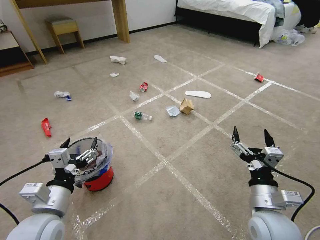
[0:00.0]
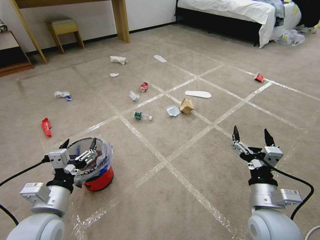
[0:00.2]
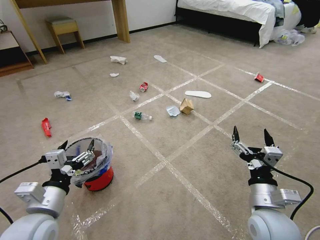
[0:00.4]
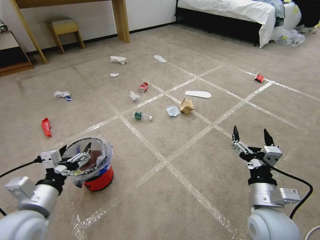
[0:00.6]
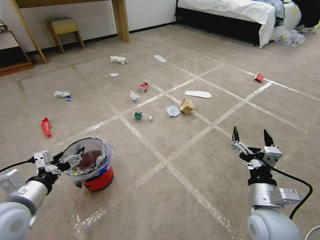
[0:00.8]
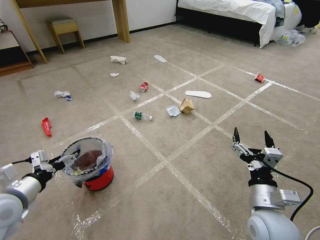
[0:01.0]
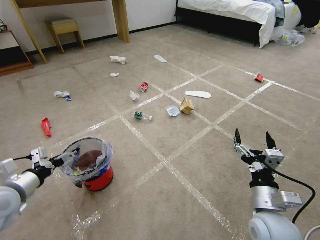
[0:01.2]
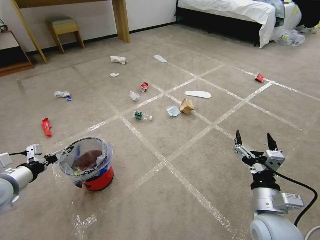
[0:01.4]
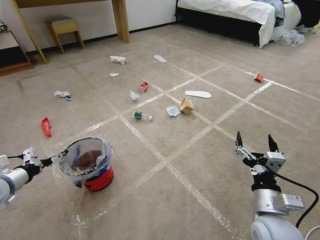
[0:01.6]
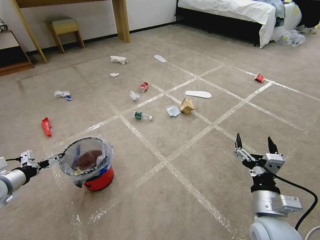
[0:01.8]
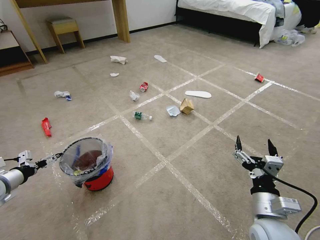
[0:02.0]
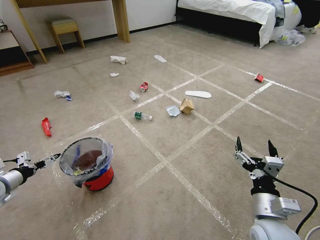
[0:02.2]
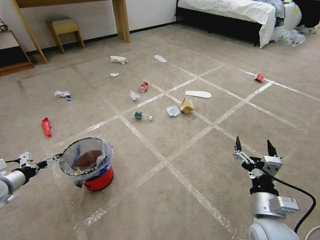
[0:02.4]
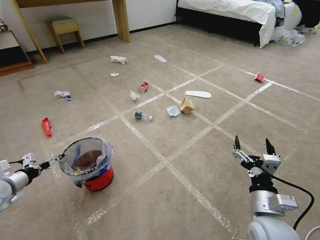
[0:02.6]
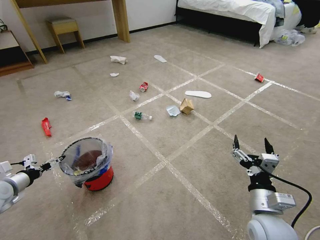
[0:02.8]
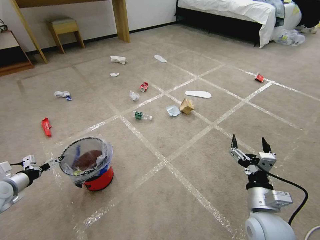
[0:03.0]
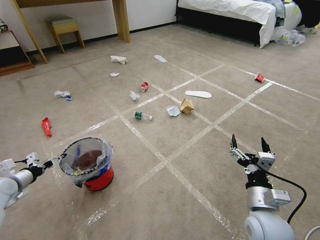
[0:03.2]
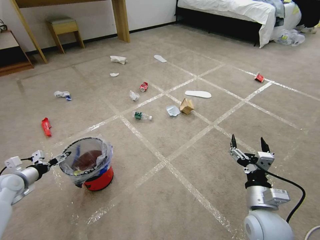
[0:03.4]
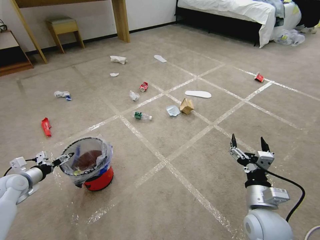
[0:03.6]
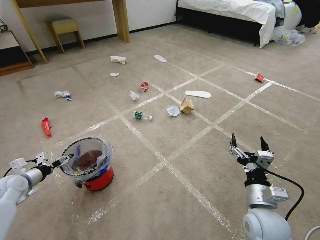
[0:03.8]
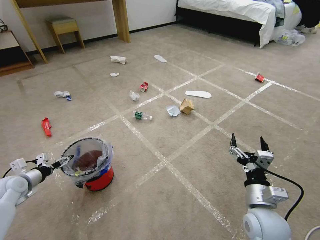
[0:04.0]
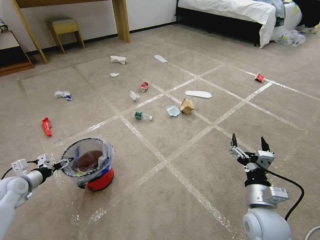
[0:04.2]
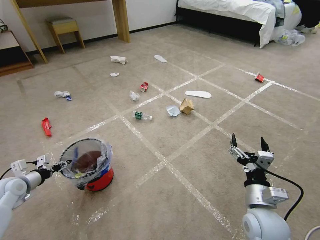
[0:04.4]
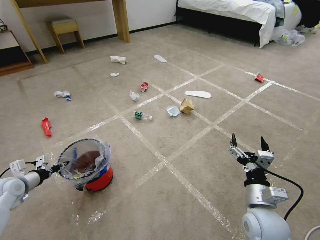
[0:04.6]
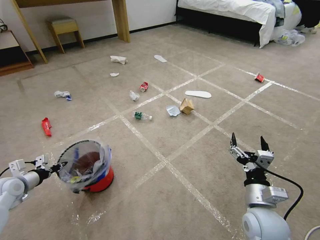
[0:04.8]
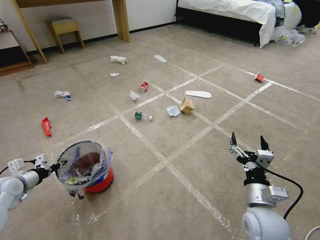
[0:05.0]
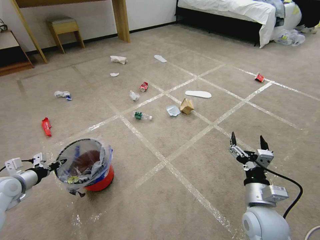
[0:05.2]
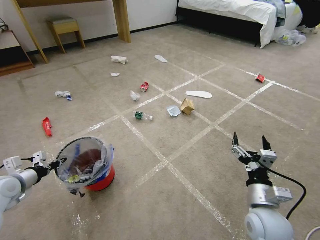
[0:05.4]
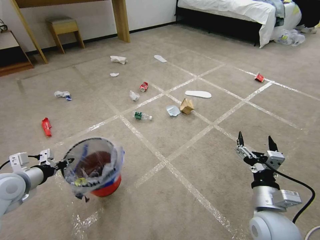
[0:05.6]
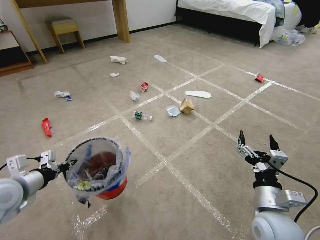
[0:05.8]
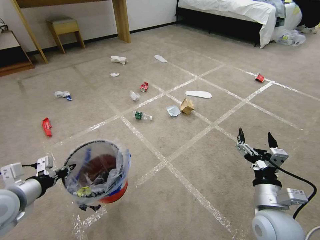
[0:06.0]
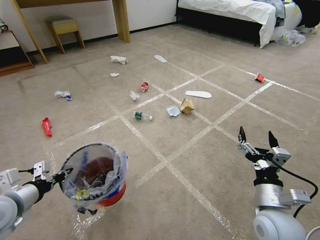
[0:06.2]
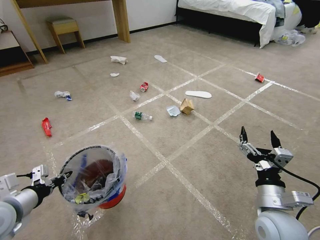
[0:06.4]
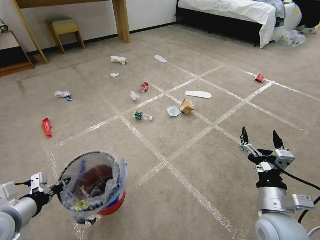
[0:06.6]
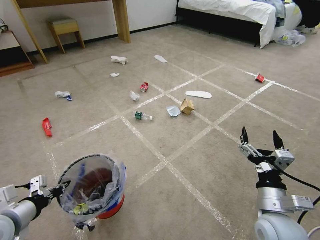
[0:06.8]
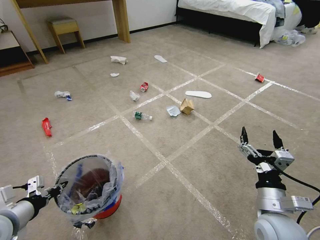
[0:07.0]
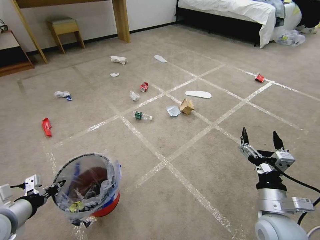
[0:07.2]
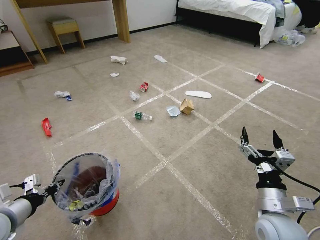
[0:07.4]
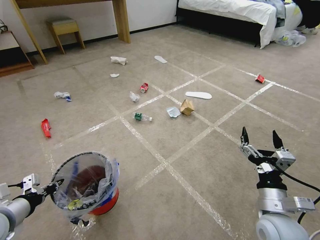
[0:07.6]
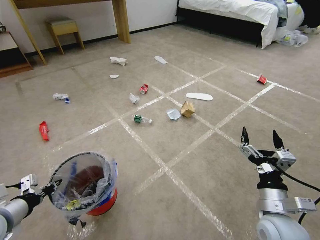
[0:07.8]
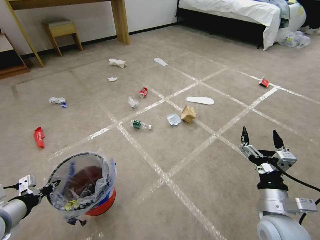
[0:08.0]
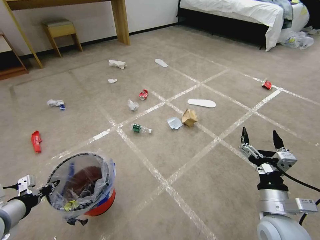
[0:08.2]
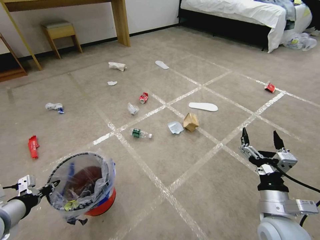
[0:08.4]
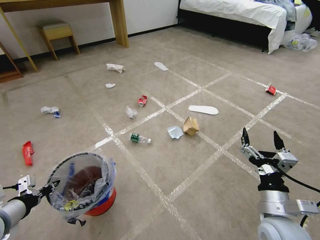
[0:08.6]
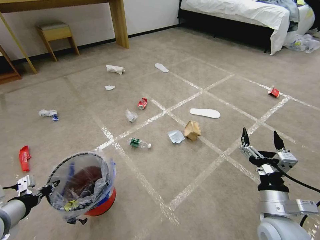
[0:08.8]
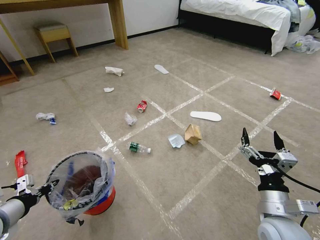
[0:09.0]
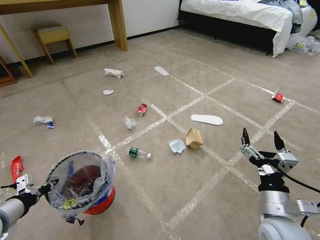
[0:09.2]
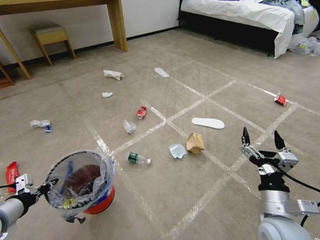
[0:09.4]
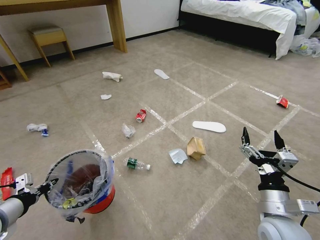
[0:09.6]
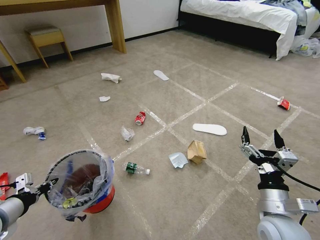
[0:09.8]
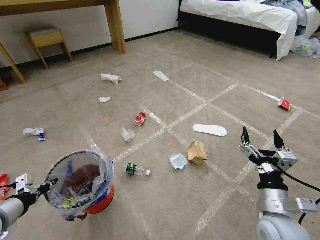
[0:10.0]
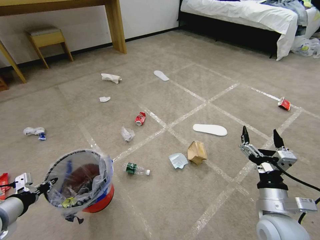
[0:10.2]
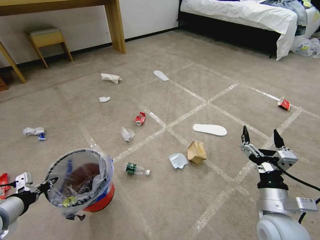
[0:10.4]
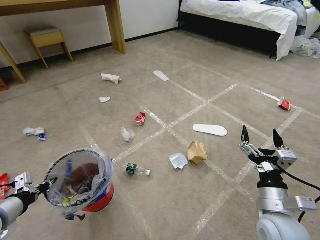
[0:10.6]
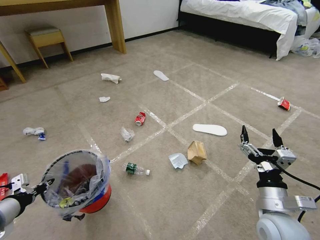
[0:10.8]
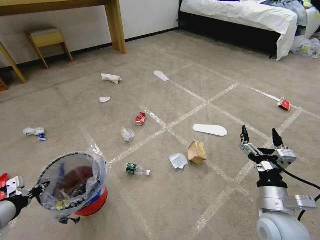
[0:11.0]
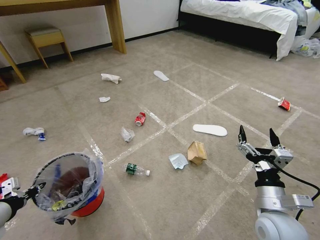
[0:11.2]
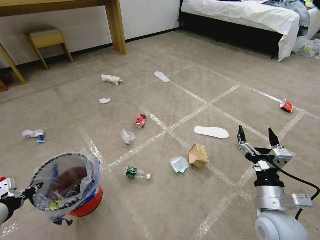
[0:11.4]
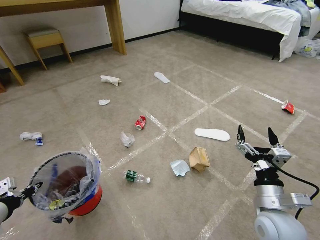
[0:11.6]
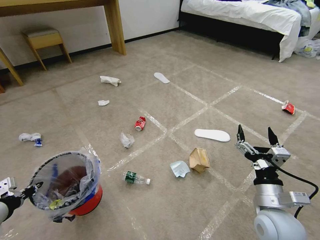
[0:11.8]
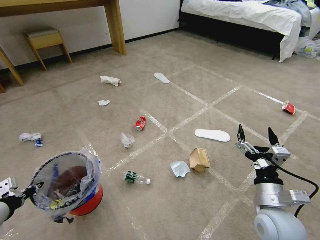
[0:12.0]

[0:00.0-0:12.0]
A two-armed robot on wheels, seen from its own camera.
Task of the whole recording: Pick up the trash bin and place the garbage on the floor into it.
0:01.6 to 0:03.0: The left gripper is displaced downward by about 5 cm.
0:03.0 to 0:04.4: The left gripper closes its fingers.
0:04.4 to 0:06.0: The left gripper heads upward, to the right and backward, covering some 20 cm, and closes.
0:06.0 to 0:07.6: The left gripper moves about 5 cm.
0:10.4 to 0:12.0: The grippers move only a little.

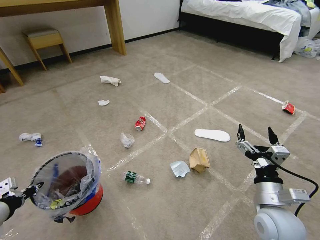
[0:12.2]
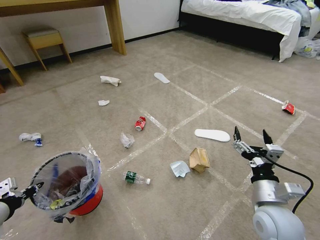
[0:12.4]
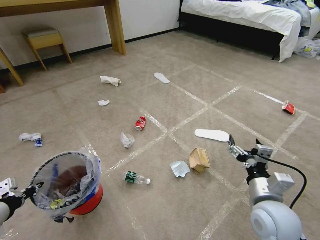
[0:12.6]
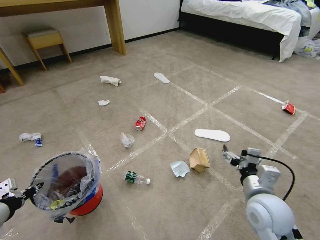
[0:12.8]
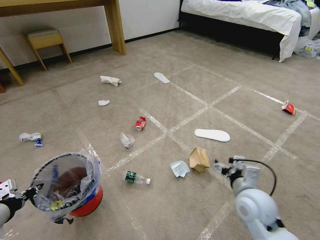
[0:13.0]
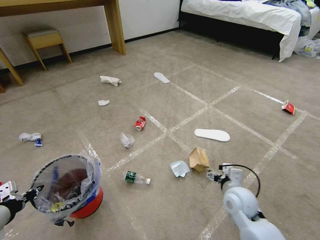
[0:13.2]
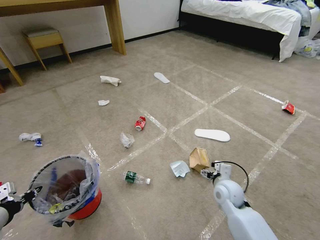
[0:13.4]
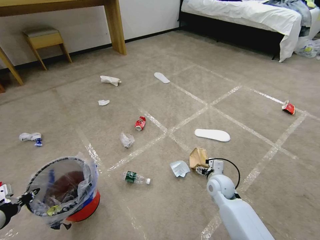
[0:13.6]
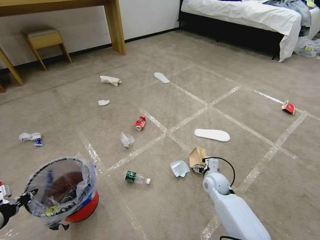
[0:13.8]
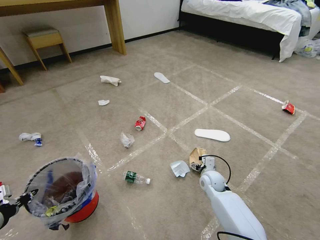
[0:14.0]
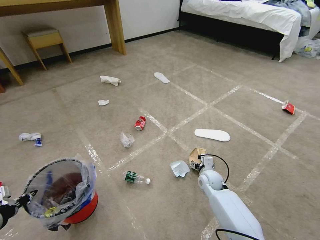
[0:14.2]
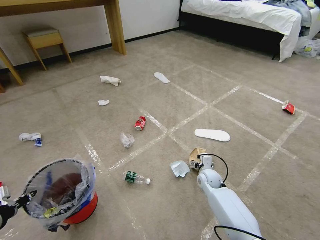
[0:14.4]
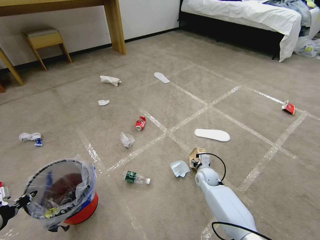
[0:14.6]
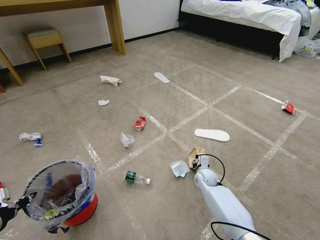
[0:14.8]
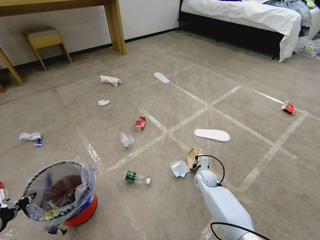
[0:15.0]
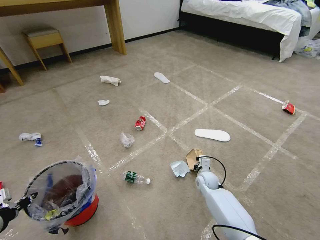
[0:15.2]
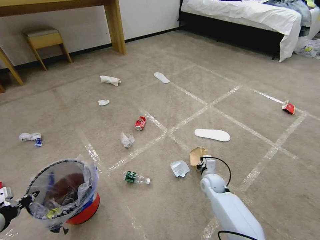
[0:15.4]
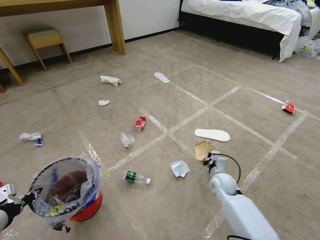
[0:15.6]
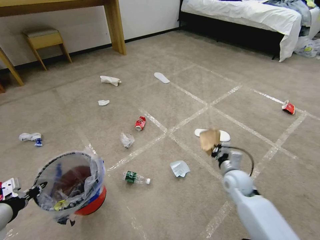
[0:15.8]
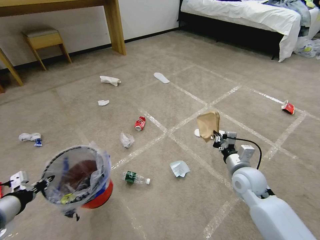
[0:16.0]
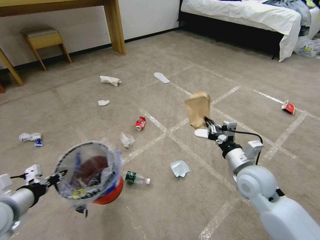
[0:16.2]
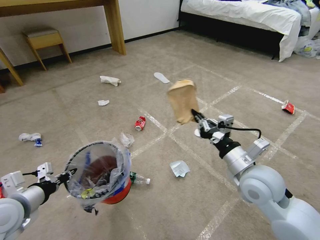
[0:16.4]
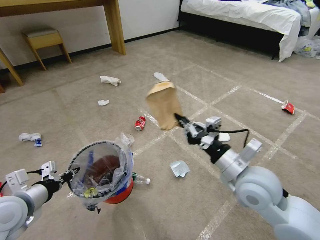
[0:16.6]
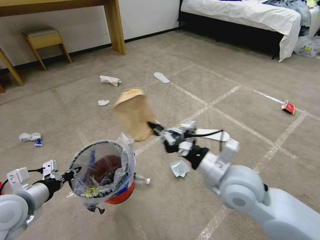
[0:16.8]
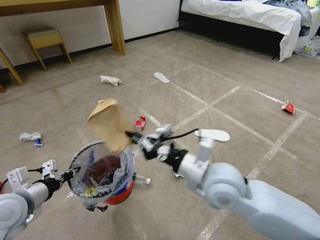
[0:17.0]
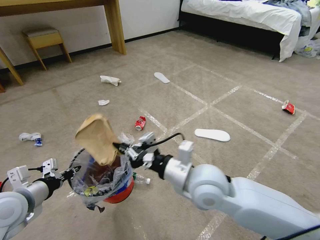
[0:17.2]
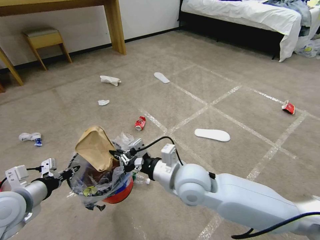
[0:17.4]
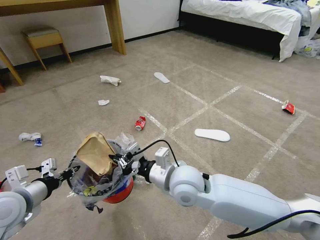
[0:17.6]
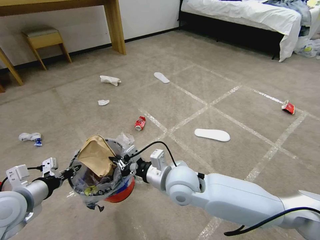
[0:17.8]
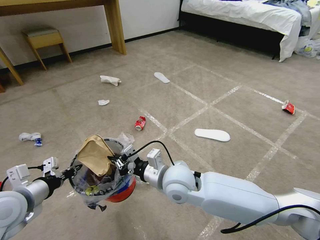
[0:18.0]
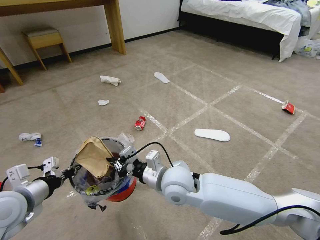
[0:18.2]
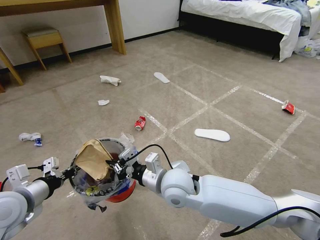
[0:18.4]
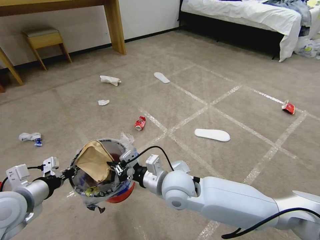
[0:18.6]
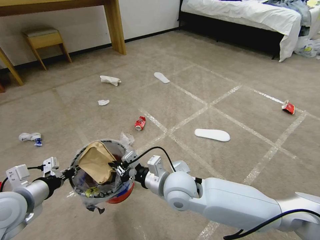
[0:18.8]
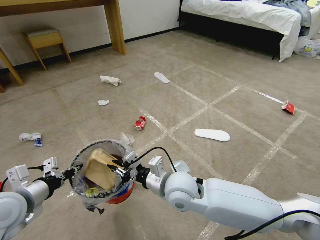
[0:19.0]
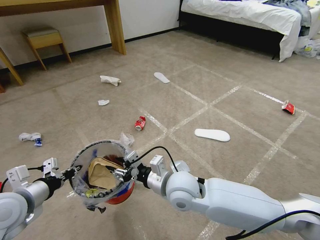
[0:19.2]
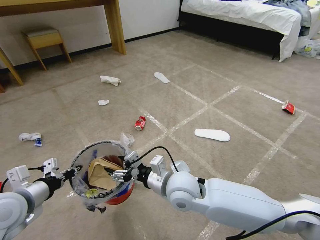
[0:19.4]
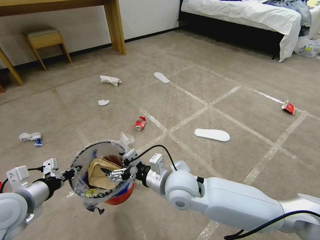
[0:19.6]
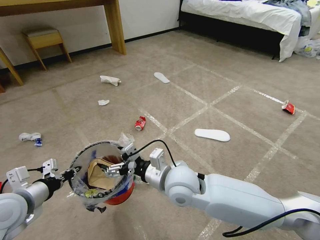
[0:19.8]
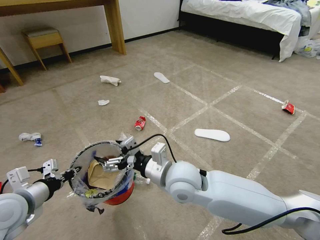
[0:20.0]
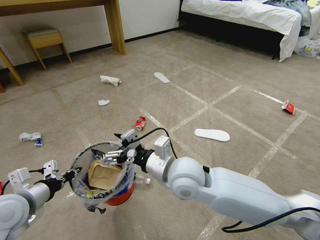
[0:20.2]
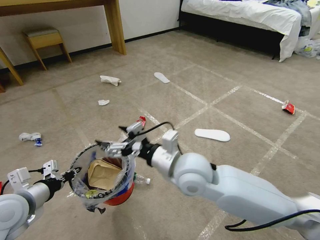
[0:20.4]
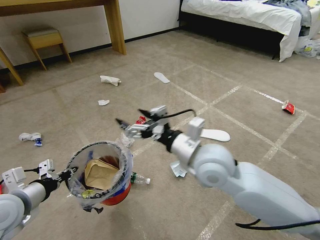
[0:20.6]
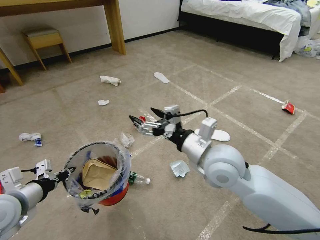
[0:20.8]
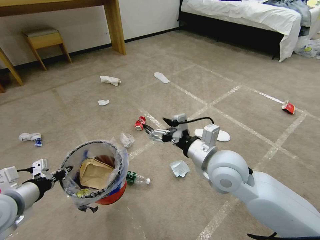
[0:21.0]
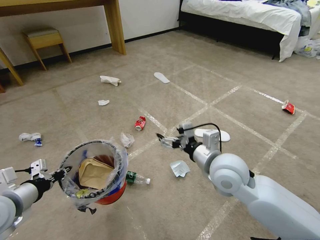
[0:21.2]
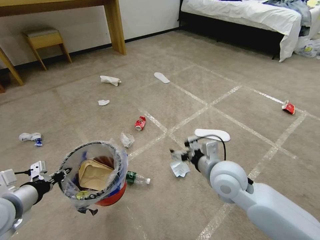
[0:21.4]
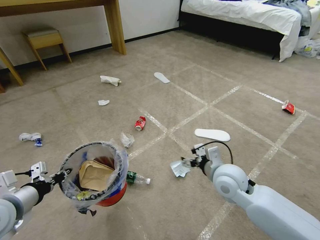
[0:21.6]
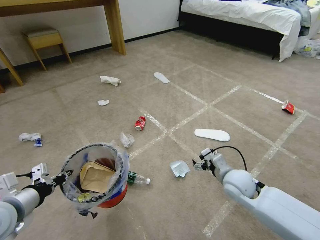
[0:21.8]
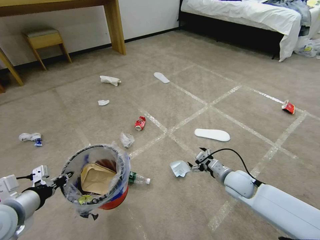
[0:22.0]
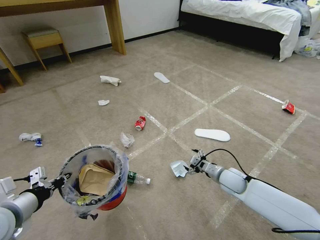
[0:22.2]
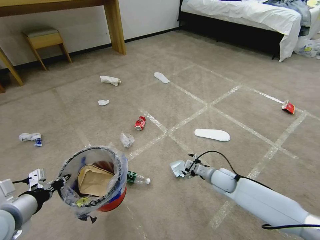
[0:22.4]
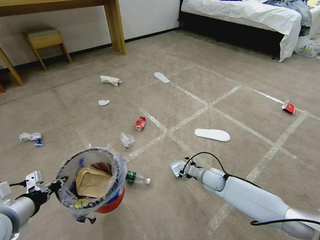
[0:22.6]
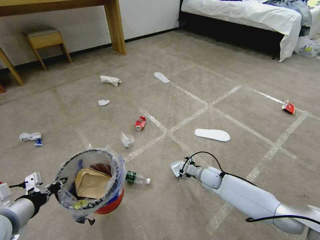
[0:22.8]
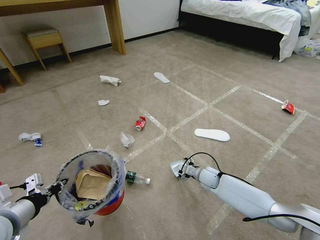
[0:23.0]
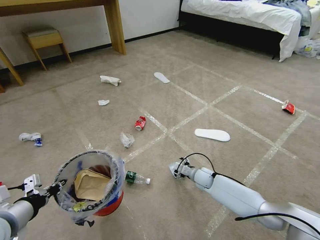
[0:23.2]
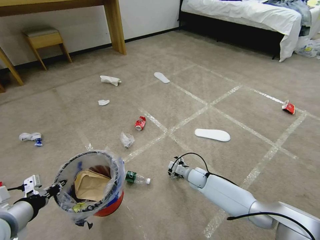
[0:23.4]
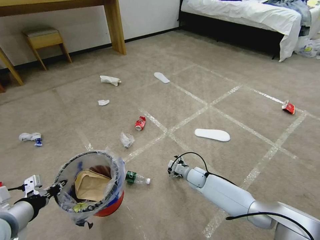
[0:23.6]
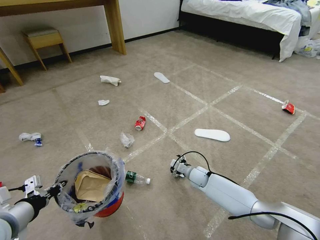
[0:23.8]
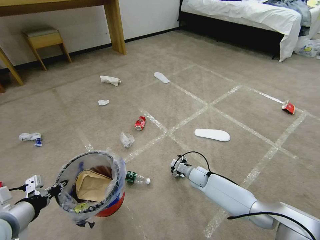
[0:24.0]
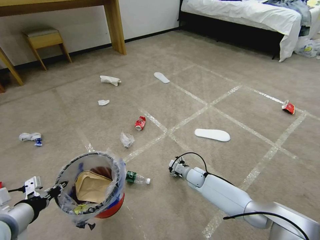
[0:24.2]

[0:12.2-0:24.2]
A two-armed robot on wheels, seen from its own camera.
Task of the whole recording: Pick up the trash bin and place the garbage on the floor into it.
0:12.2 to 0:13.8: The right gripper shifts about 25 cm forward and downward.
0:13.8 to 0:15.2: The right gripper moves downward, some 5 cm, and closes its fingers.
0:15.2 to 0:16.6: The right gripper shifts about 35 cm upward and backward. Meanwhile the left gripper shifts some 10 cm to the right and forward.
0:16.6 to 0:18.2: The right gripper travels to the left by roughly 20 cm.
0:18.2 to 0:19.8: The right gripper opens up.
0:19.8 to 0:21.2: The right gripper moves to the right, about 10 cm.
0:21.2 to 0:22.6: The right gripper goes roughly 25 cm downward.
0:22.6 to 0:24.2: The right gripper travels downward and to the left by some 10 cm.
